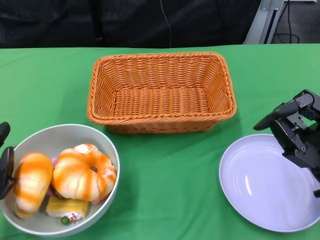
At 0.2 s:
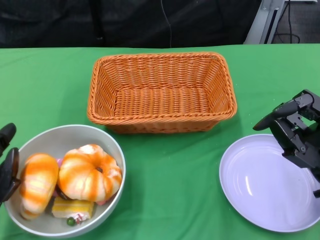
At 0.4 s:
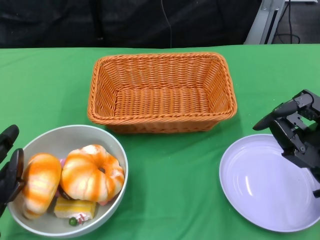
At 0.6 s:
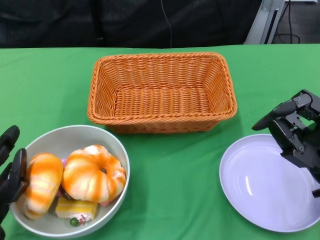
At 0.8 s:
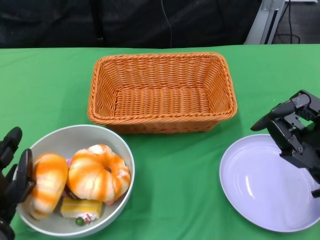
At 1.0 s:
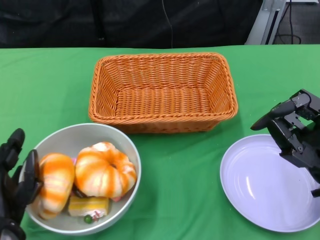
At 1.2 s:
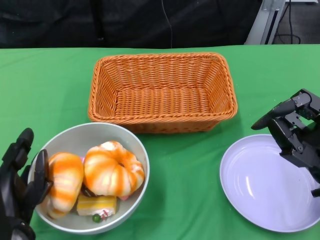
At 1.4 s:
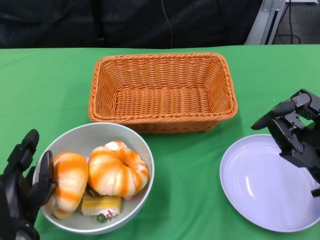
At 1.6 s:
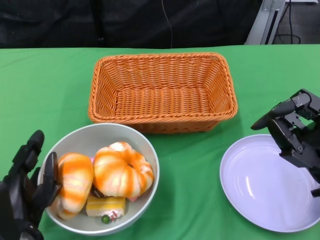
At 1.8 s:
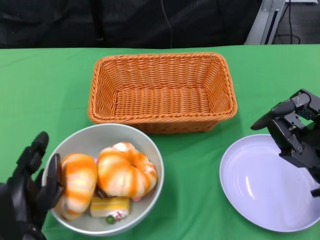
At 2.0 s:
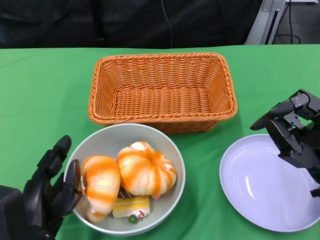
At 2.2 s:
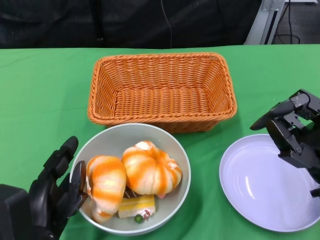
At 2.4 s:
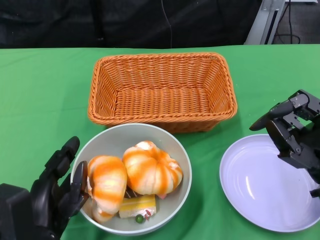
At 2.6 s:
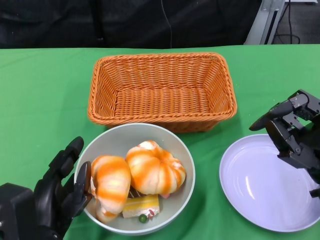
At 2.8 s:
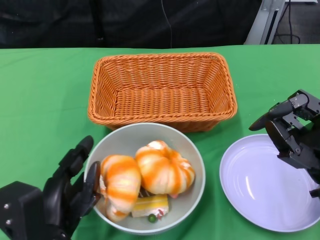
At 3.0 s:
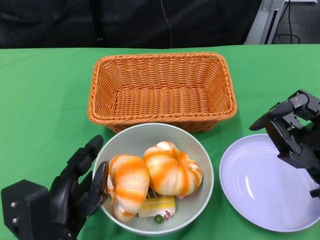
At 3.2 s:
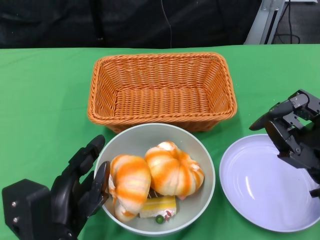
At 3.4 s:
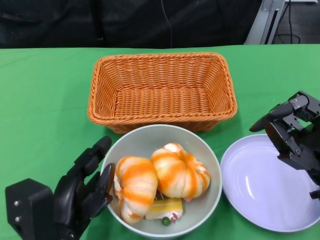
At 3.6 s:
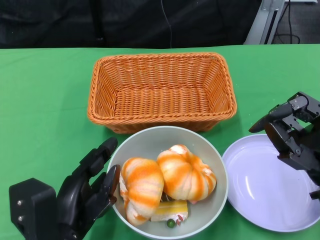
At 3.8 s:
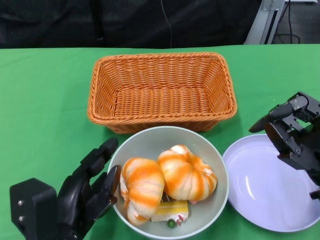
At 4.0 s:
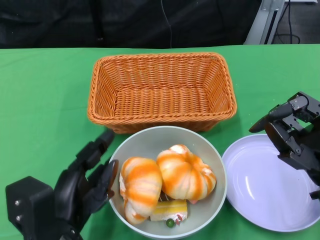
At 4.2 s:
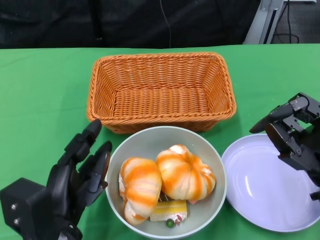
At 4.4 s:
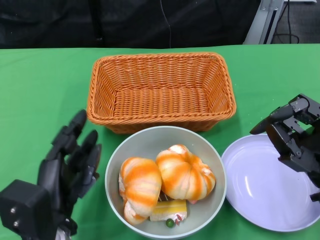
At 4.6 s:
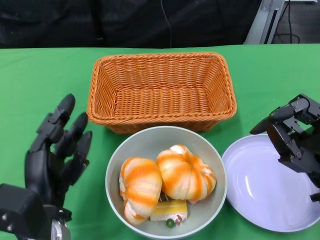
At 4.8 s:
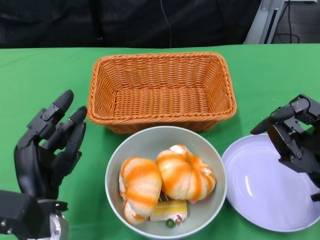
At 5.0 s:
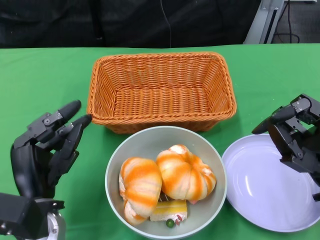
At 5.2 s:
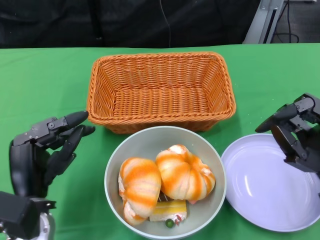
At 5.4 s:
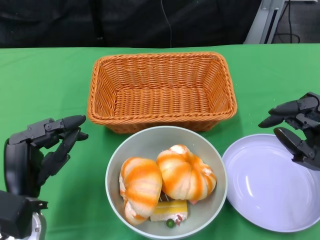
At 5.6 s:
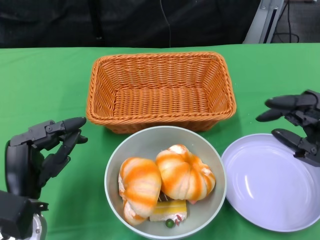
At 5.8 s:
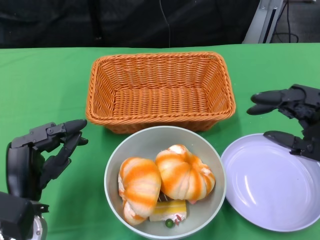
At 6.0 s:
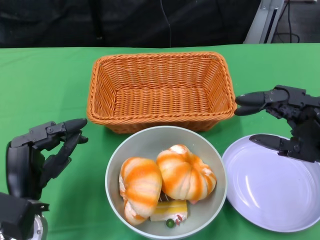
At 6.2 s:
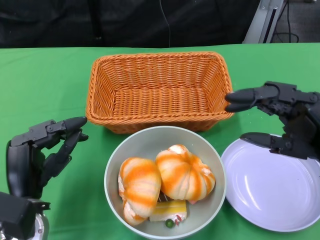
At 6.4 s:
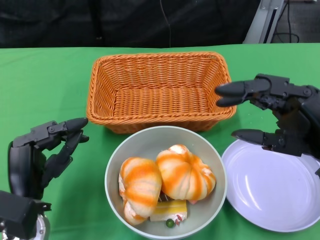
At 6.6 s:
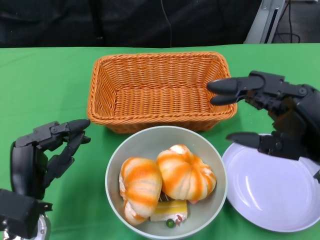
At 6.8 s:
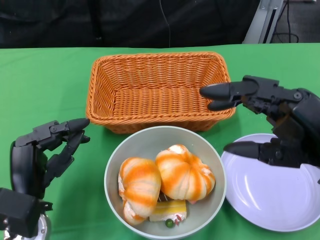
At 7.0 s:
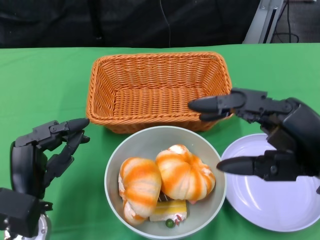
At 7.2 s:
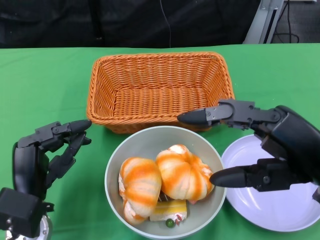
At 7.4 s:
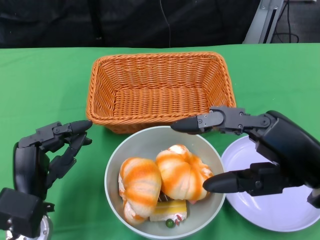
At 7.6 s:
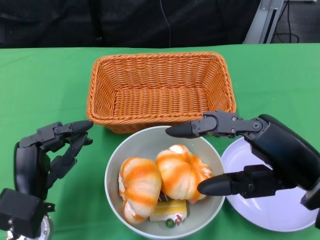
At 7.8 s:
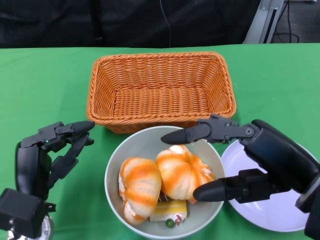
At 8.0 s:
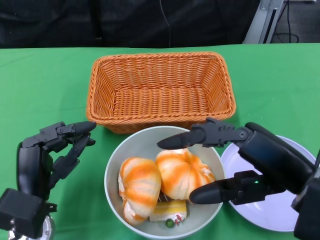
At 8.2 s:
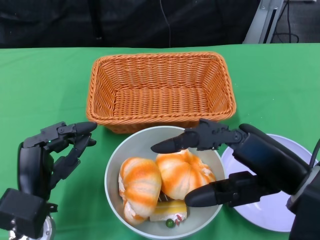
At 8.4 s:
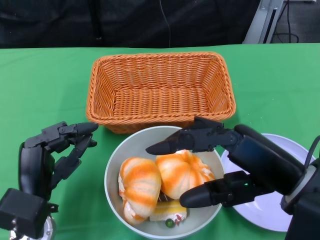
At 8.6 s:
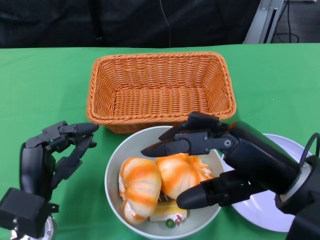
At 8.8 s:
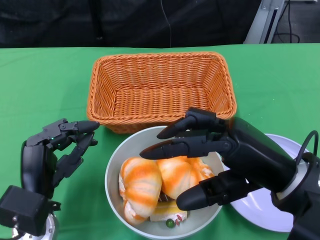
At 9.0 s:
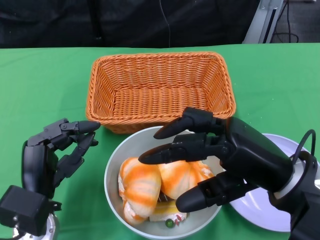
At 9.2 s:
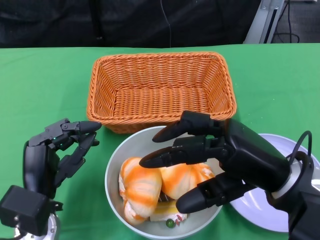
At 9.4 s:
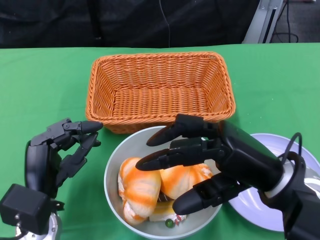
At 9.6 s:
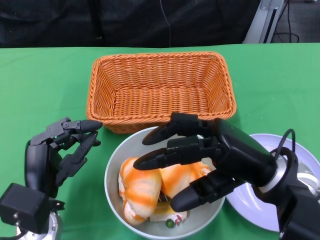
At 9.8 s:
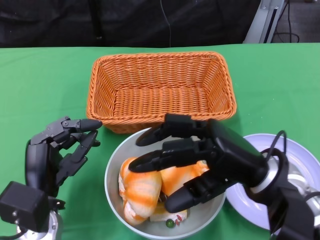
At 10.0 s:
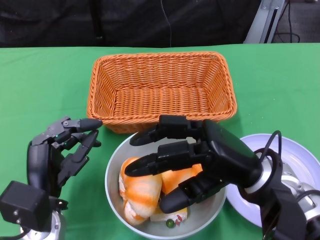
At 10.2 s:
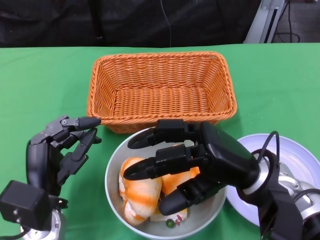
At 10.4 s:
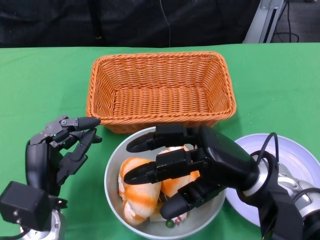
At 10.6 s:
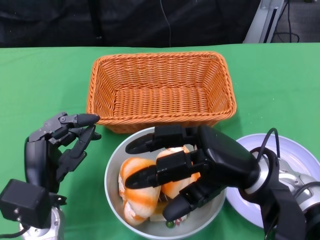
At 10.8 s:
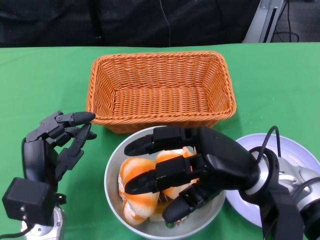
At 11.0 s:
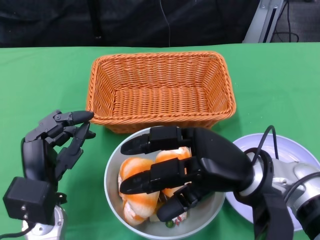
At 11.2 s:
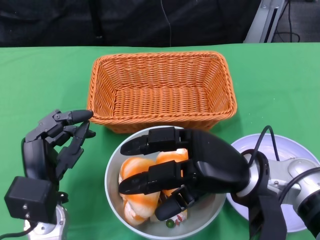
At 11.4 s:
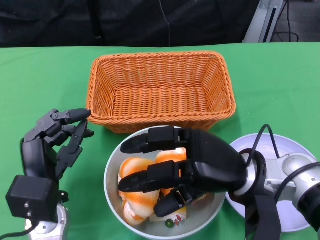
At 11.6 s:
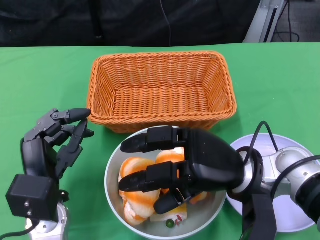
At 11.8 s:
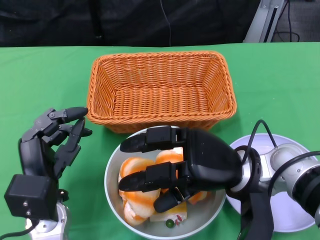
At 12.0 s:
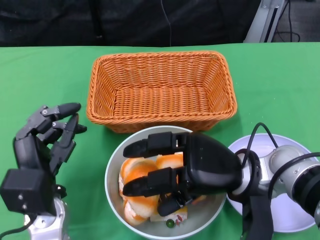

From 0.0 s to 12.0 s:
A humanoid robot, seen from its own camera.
Step, from 0.0 s to 5.2 s: Push the bowl to the center of the table using the left gripper.
From 0.0 s to 1.6 s: The left hand travels to the right by approximately 5 cm.
From 4.4 s to 6.0 s: The right hand heads upward, covering roughly 5 cm.
From 6.0 s to 7.6 s: The right hand is displaced to the left and upward by roughly 10 cm.
From 9.0 s to 10.4 s: The right hand moves some 5 cm.

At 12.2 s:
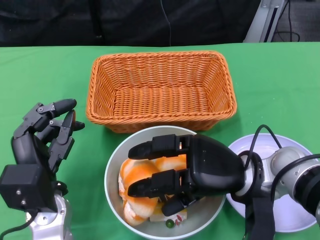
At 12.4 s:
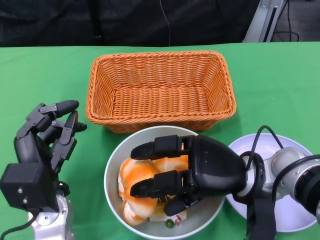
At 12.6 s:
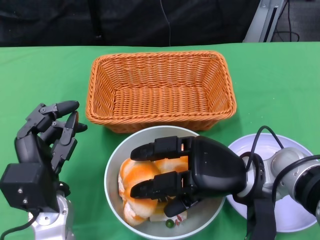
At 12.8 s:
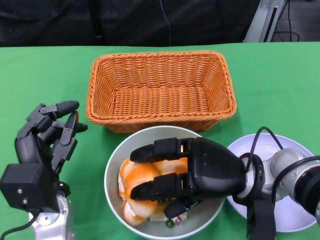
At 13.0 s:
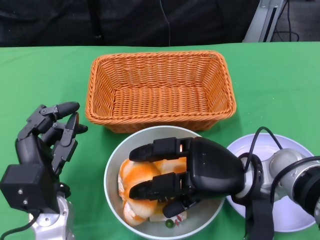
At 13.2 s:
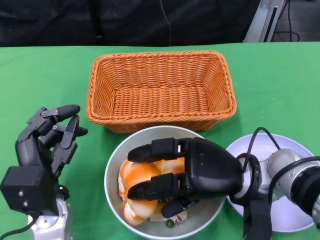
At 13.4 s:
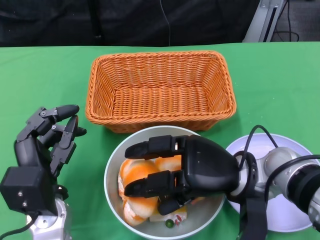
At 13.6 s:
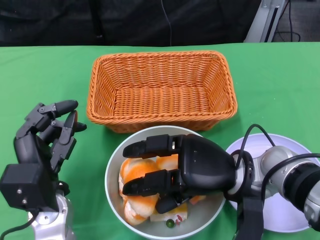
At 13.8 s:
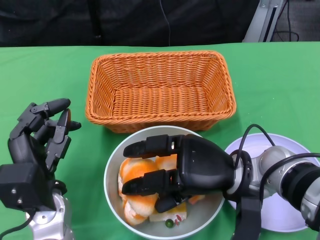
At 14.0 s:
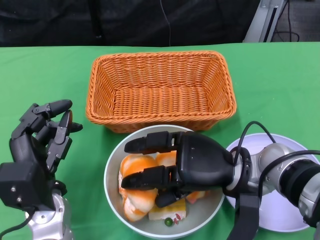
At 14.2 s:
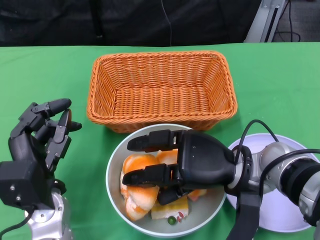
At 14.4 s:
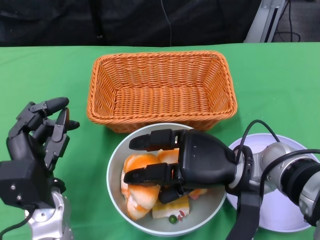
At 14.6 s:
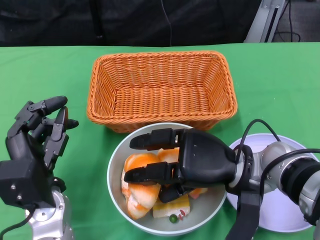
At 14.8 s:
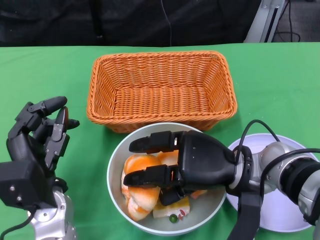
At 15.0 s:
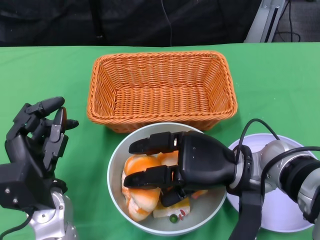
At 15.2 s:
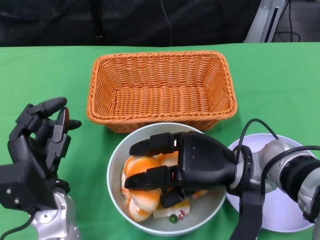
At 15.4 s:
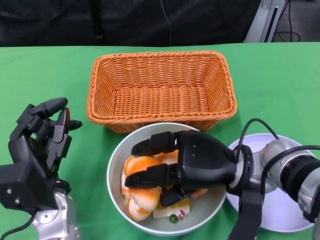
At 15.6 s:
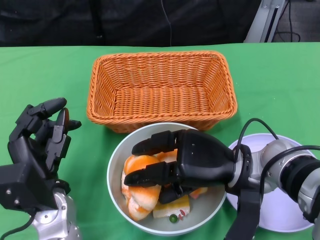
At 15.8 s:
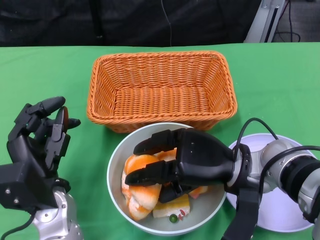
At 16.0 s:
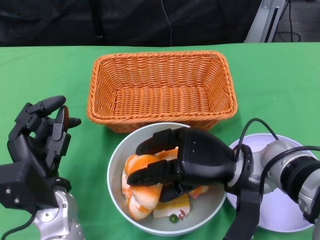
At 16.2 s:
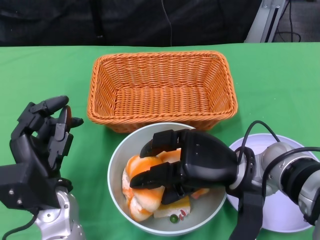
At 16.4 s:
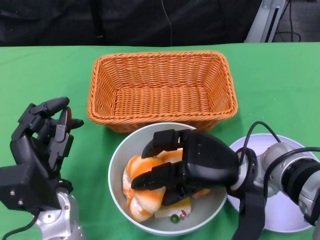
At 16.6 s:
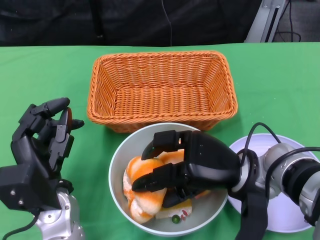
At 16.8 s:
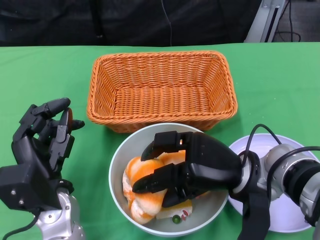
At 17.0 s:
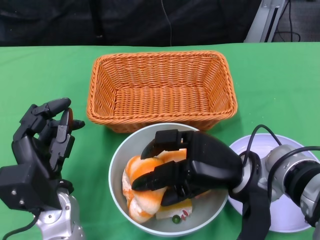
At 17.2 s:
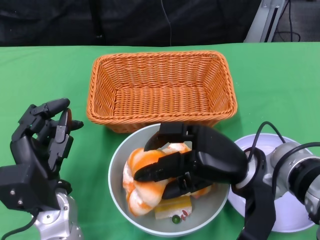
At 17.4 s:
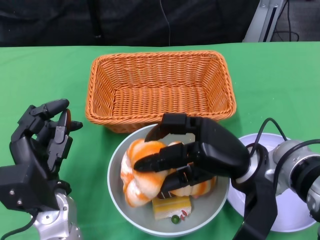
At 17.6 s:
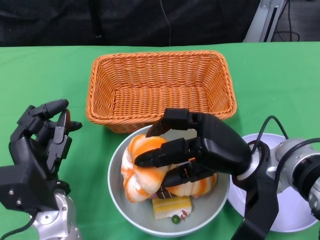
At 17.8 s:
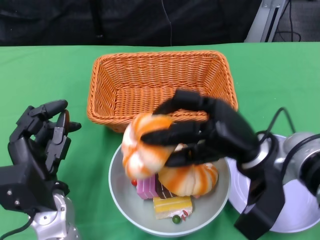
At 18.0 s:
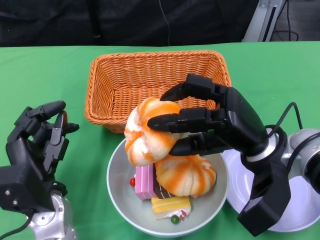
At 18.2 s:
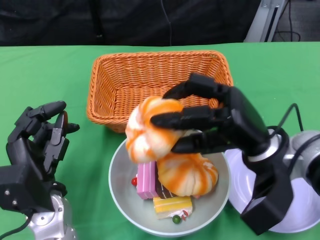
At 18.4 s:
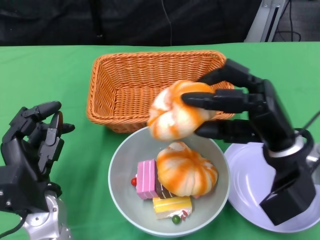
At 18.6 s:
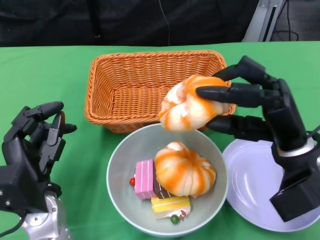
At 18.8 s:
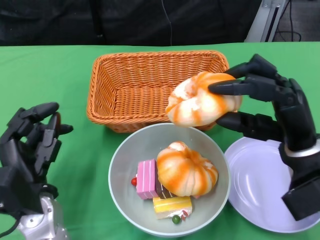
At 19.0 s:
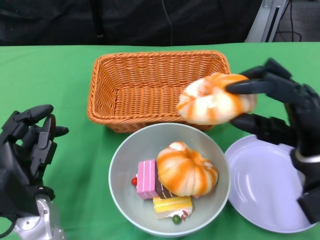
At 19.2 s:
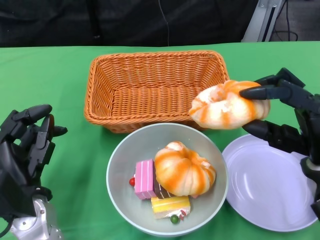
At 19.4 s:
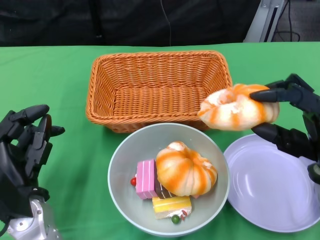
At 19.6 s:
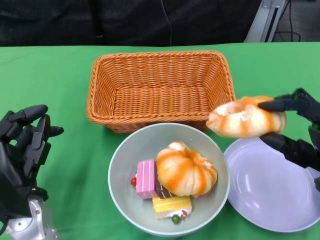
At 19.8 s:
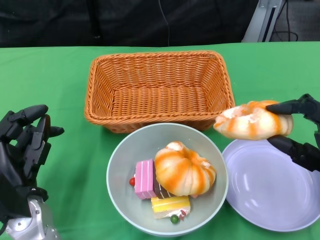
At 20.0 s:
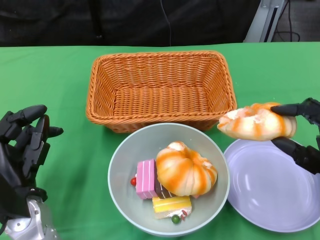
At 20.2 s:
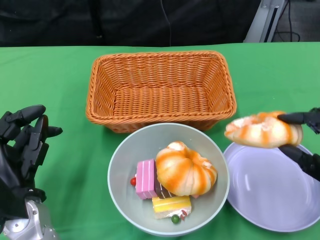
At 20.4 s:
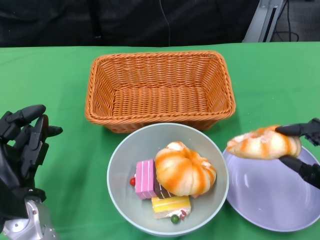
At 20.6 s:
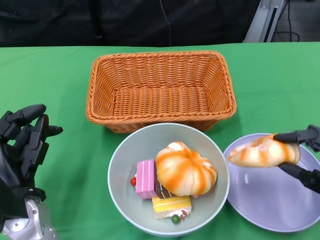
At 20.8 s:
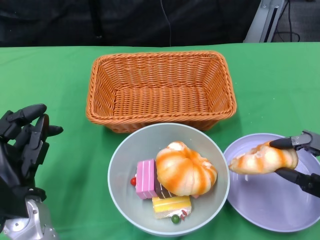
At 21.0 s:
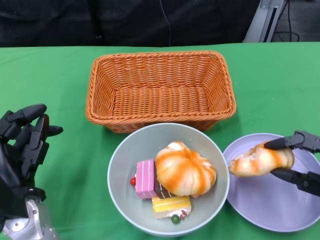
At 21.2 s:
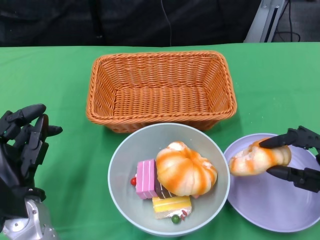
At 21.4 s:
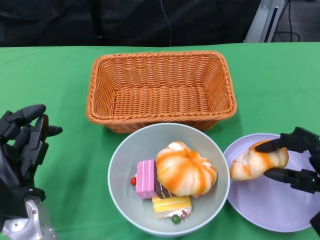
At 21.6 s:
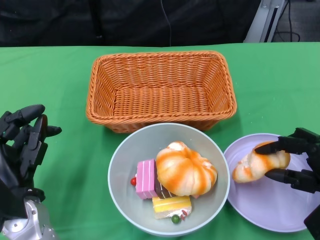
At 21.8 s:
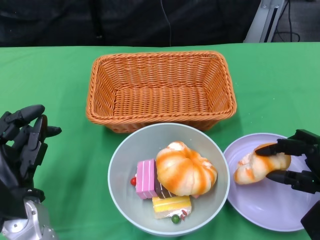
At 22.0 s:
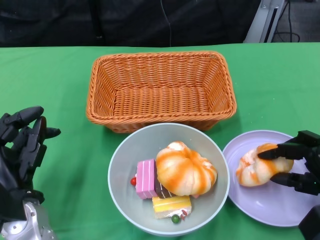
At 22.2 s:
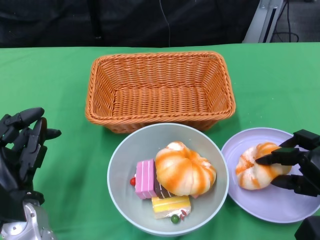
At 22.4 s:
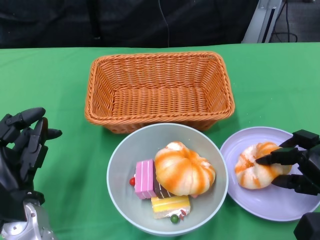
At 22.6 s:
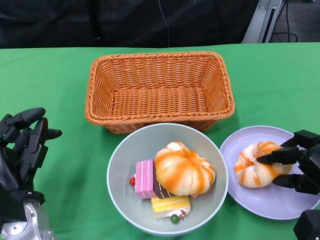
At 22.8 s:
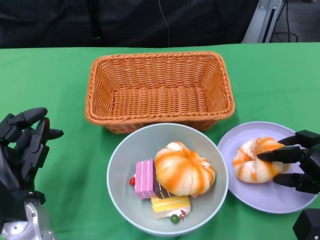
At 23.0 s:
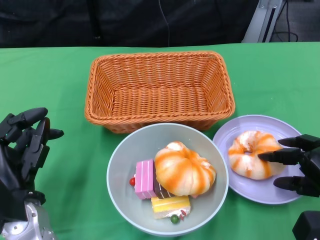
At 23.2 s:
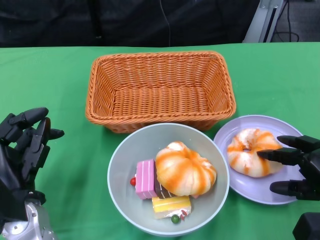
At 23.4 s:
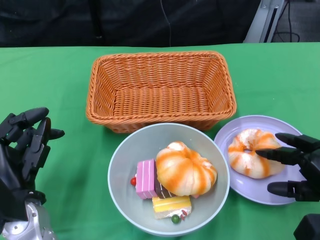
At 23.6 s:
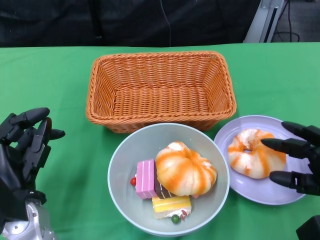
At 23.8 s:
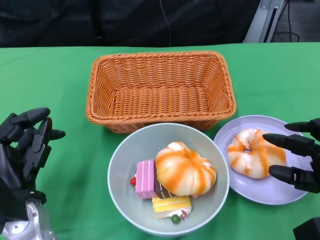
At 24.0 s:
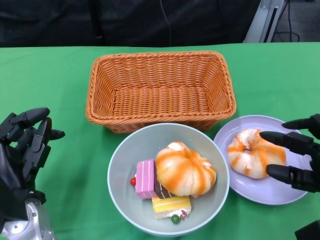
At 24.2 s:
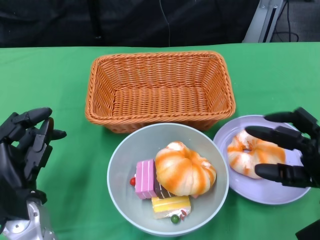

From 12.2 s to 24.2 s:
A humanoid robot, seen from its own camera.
From 12.2 s to 16.6 s: The hands move only a little.
From 18.2 s to 19.8 s: The right hand goes approximately 10 cm to the right.
